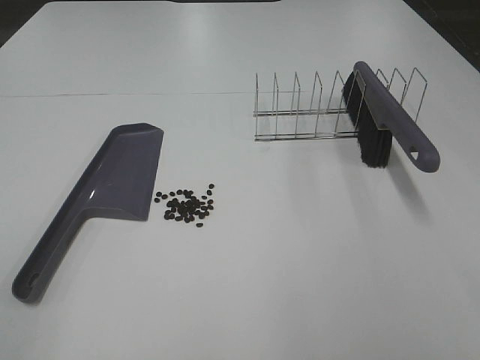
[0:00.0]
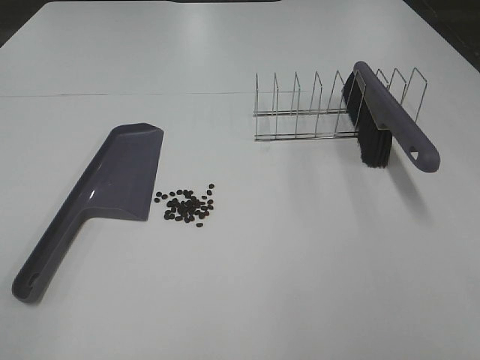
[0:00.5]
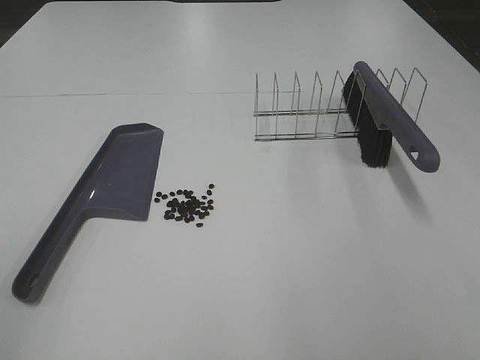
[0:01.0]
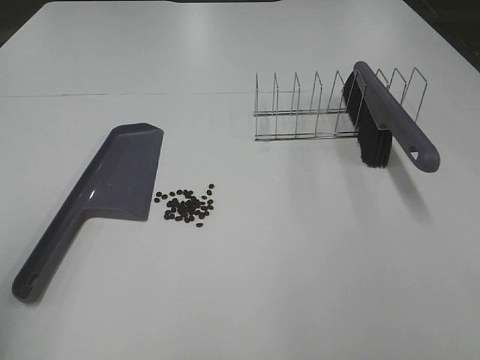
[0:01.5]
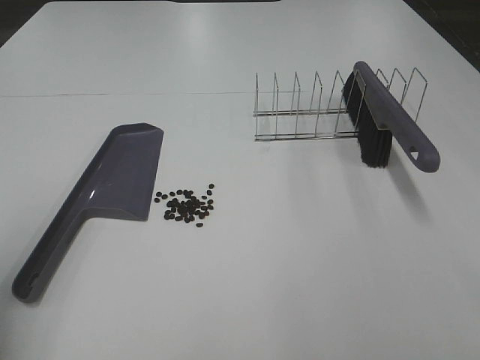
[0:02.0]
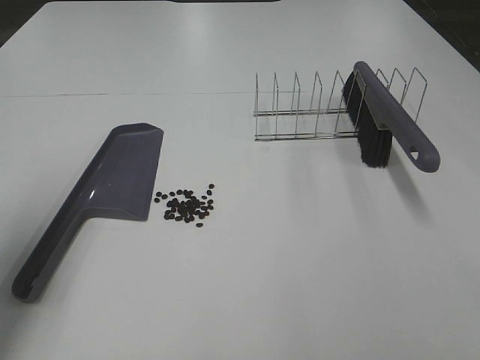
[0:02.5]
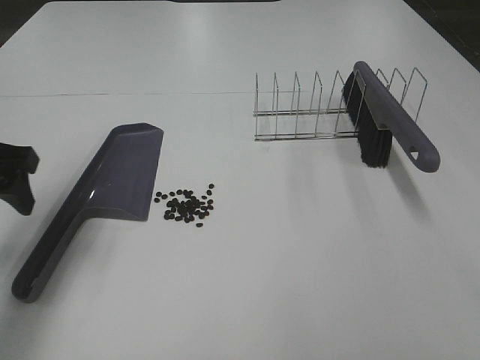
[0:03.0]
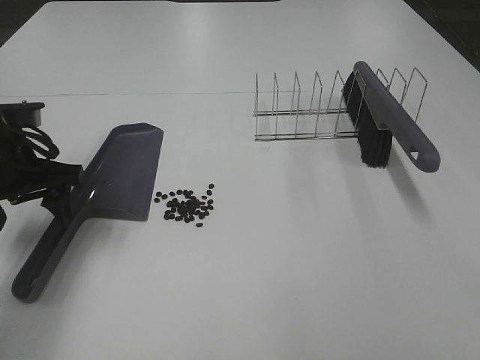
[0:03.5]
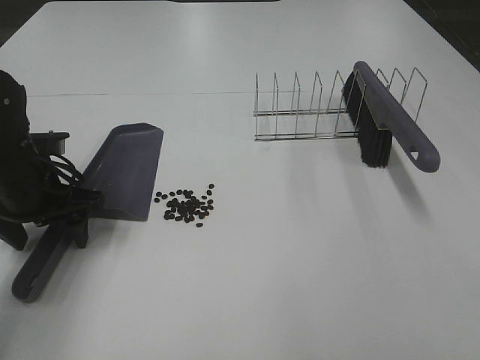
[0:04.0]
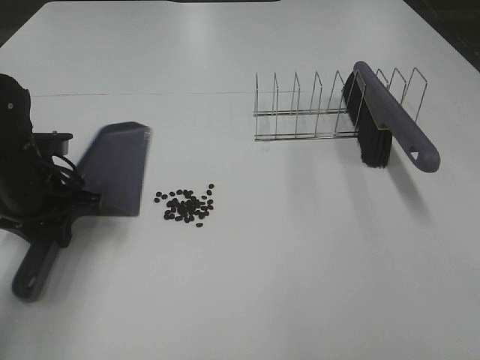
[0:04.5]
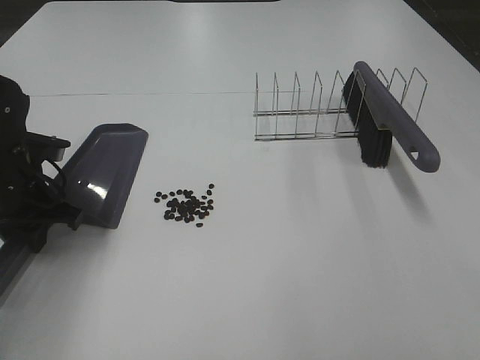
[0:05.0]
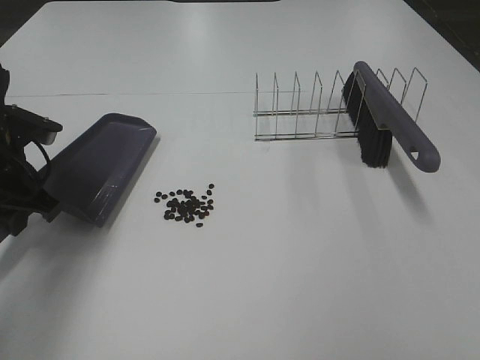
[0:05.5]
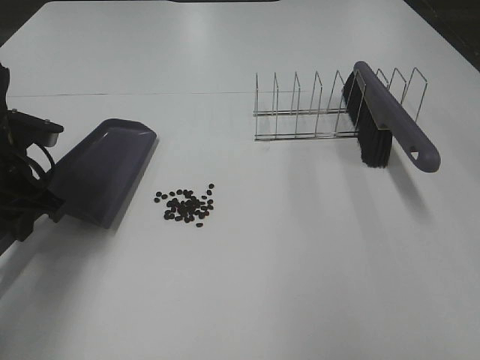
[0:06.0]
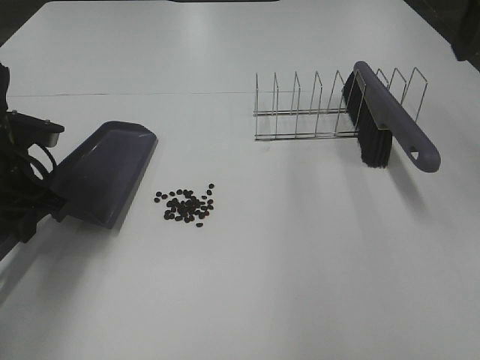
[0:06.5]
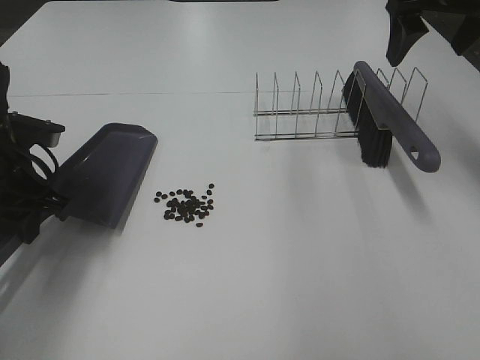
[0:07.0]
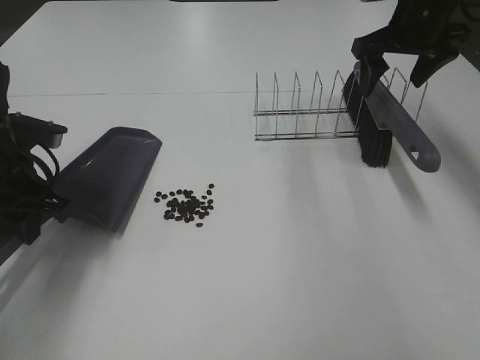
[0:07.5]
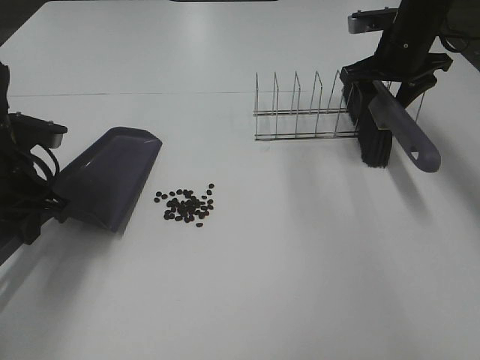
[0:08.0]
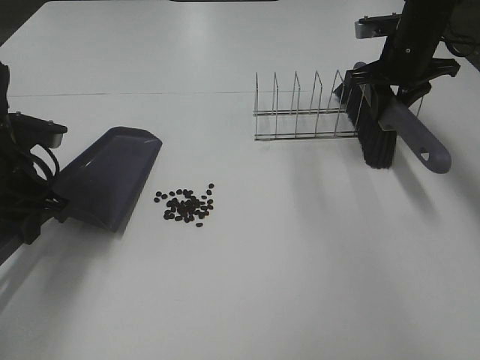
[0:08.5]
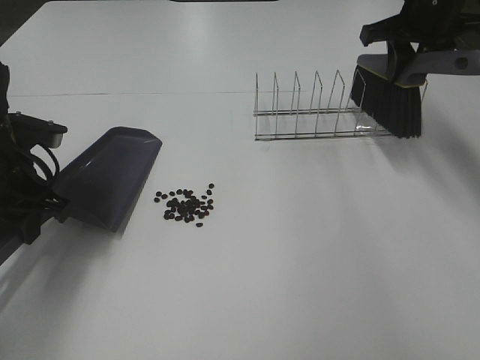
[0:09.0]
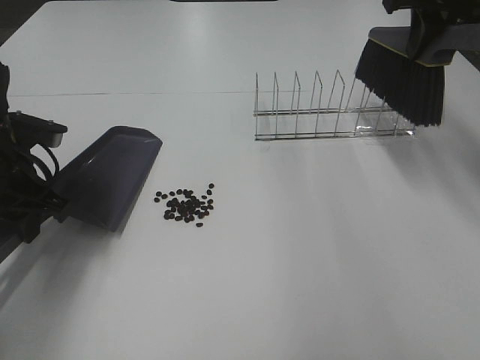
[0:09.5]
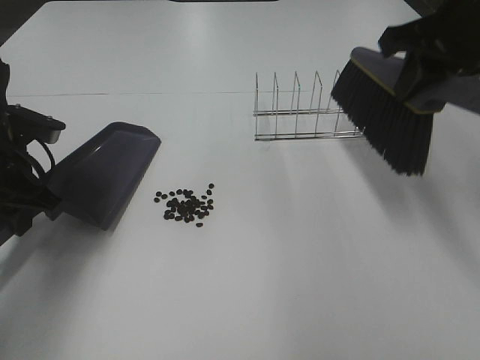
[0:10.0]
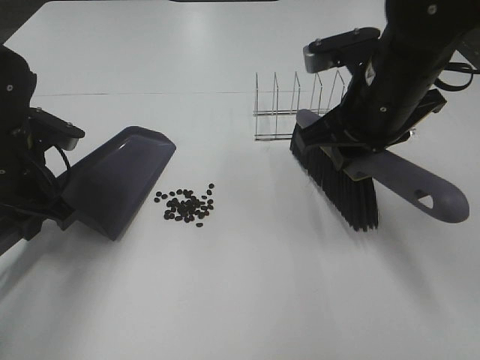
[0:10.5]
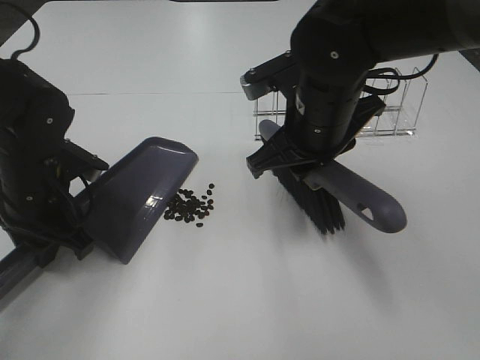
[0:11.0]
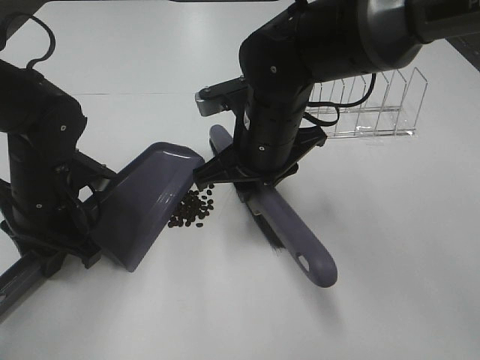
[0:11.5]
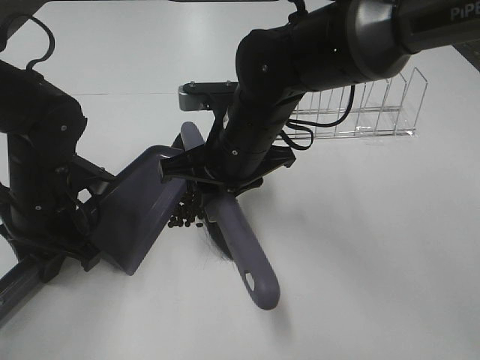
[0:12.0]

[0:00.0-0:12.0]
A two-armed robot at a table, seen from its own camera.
Task of the whole recording: Sweep Coffee Bean.
Step, 0:00.0 to 0:04.5: Left hand: grab the dustpan.
Step, 0:05.5 to 0:08.5: Right hand:grab the broom.
0:00.0 to 0:02.0: The left gripper goes roughly 15 cm forward.
0:02.0 to 0:04.0: The left gripper goes roughly 25 cm forward and downward.
0:04.0 to 0:06.0: The left gripper closes up.
0:06.0 to 0:08.0: The right gripper travels forward and downward by roughly 35 cm, and closes up.
0:08.0 to 0:10.0: The right gripper goes some 20 cm backward and upward, and closes its fingers.
0:10.0 to 0:12.0: The left gripper is displaced to the right by roughly 5 cm. Meanwhile the right gripper shifts roughly 25 cm to the left and downward.

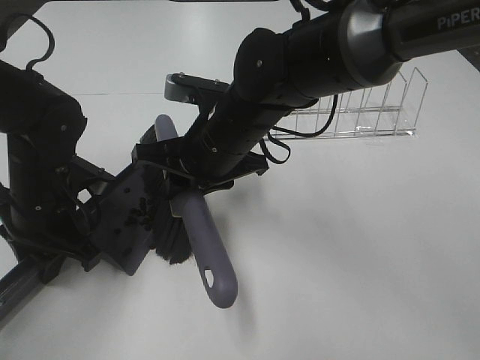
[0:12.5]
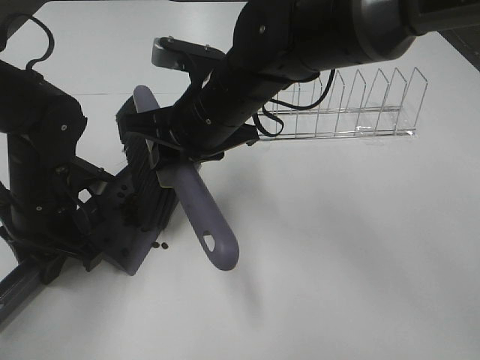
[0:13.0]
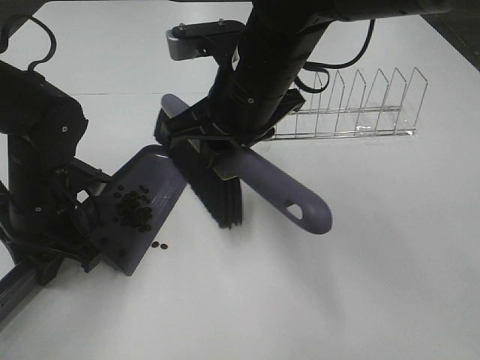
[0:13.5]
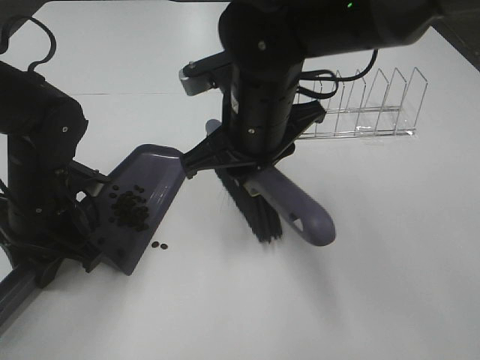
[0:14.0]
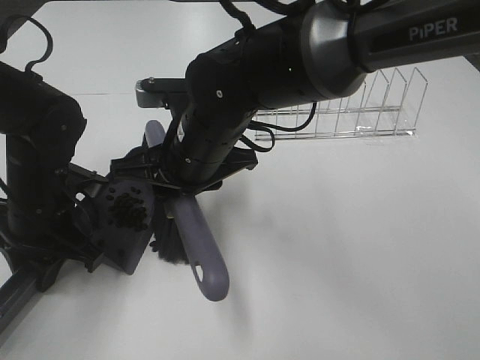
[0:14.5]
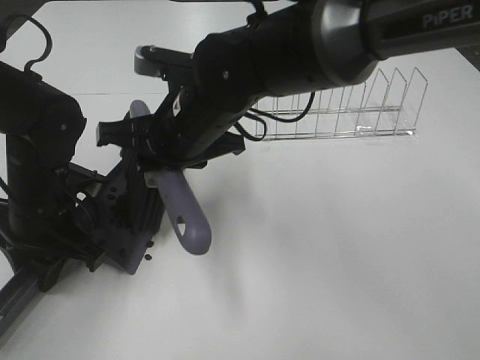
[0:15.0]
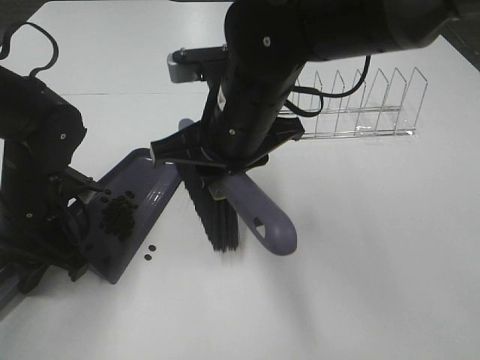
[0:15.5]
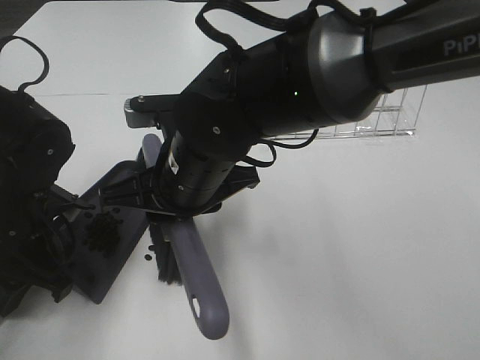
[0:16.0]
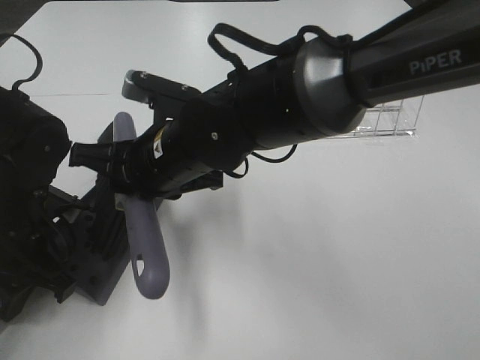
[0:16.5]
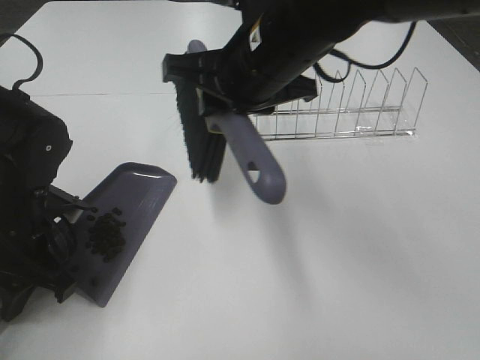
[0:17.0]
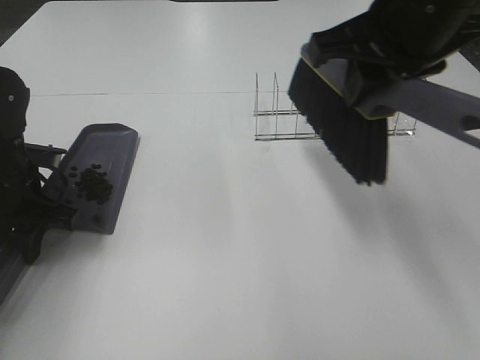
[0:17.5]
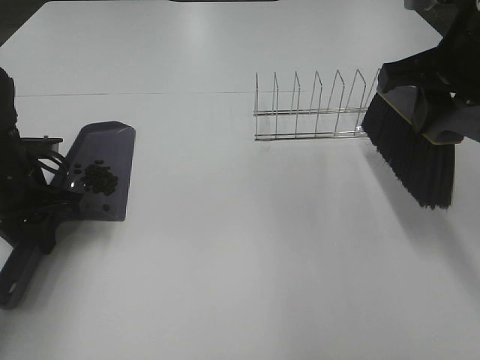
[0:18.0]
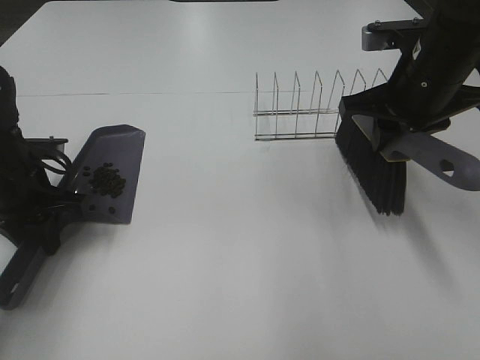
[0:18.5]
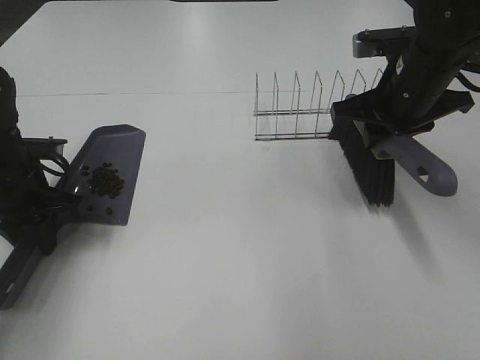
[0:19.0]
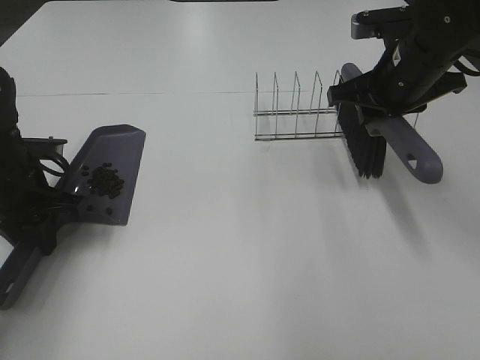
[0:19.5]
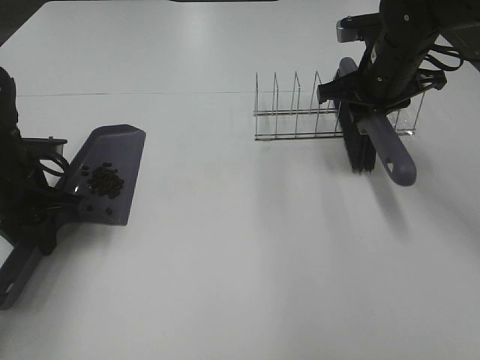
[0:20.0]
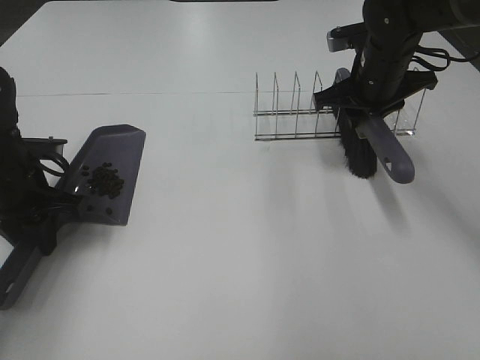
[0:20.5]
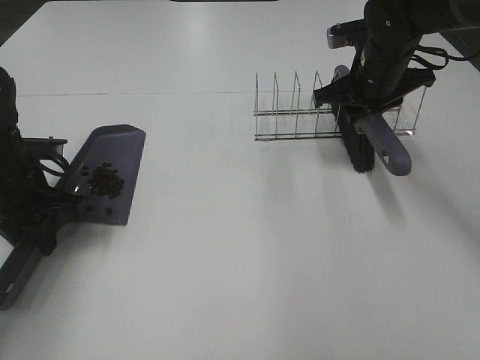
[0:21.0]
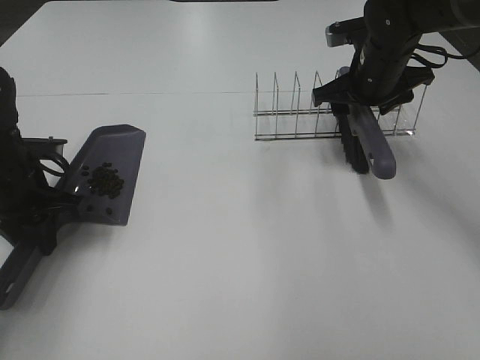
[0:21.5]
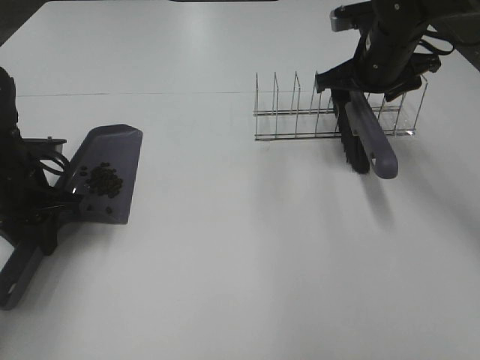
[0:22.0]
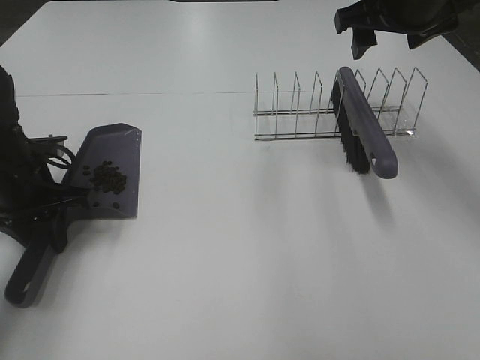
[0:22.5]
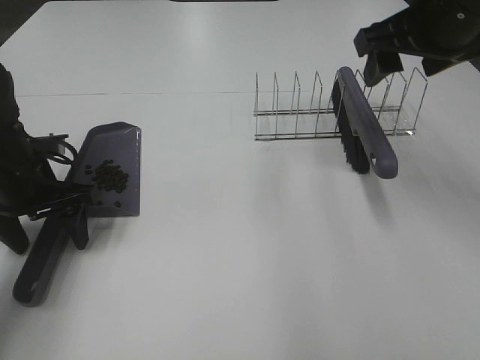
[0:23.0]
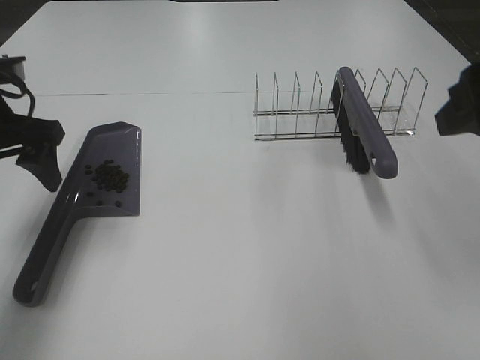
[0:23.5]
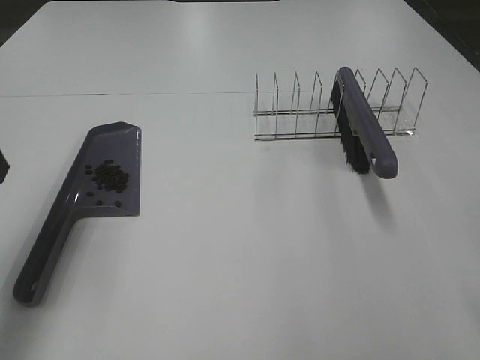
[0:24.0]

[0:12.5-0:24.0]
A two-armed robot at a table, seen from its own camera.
Task of the whole recording: Sweep Coffee Bean.
Step, 0:12.5 to 0:16.5: Right hand:sweep the coffee beans into the dustpan.
Step, 0:17.0 to 0:21.5: Right hand:place the broom on the rack.
0:16.5 to 0:18.5: The left gripper travels forward by roughly 5 cm; the right gripper goes approximately 25 cm to the right.
0:18.5 to 0:20.0: The right gripper shifts roughly 10 cm forward.
0:20.0 to 0:22.0: The right gripper opens its fingers.
0:22.0 to 0:24.0: The left gripper heads upward and backward, covering about 20 cm, and opens up. Meanwhile the right gripper moves backward, some 35 cm.

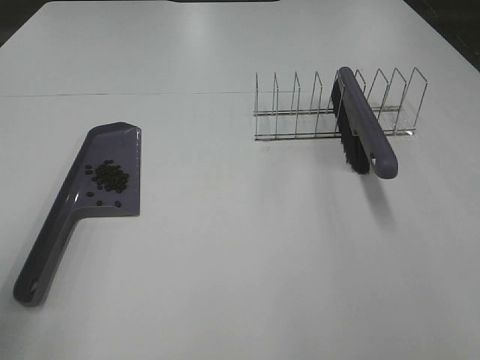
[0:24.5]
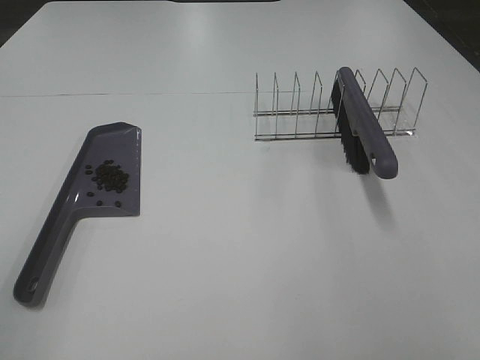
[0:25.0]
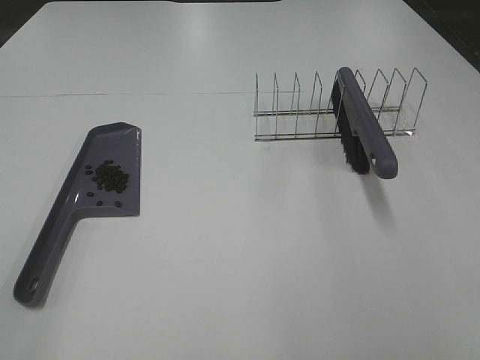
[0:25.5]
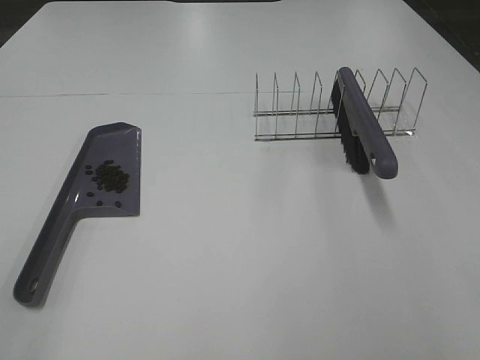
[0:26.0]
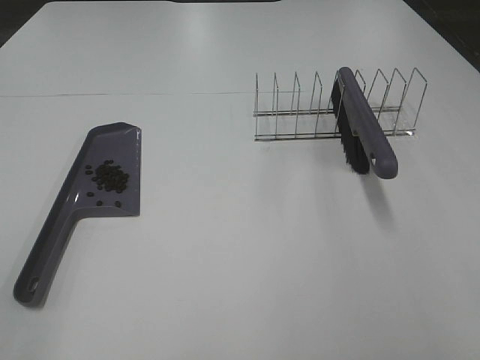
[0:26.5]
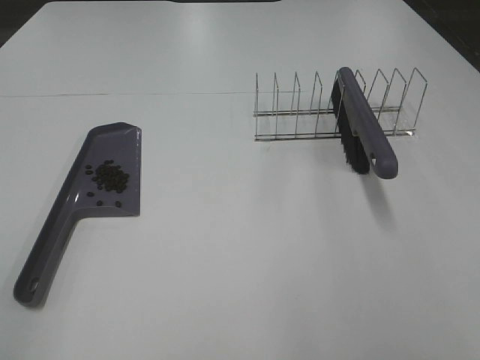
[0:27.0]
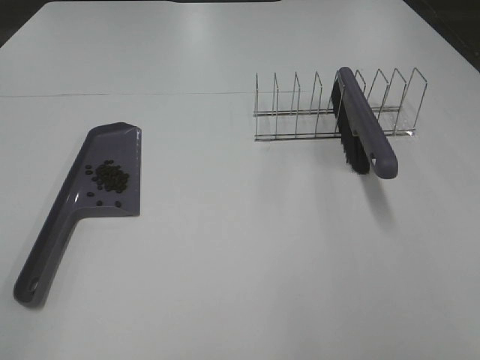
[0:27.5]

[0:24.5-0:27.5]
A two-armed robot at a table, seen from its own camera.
Task of the whole recording: Sweep Coffee Bean.
0:24.5 to 0:26.0: The left gripper moves backward, some 10 cm.
